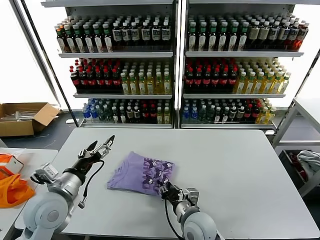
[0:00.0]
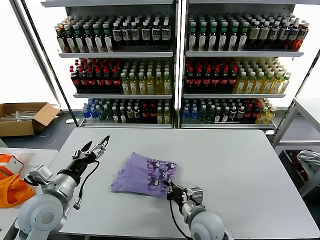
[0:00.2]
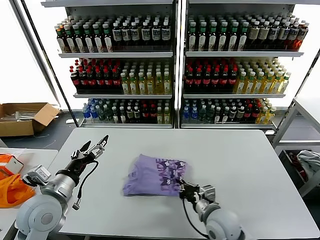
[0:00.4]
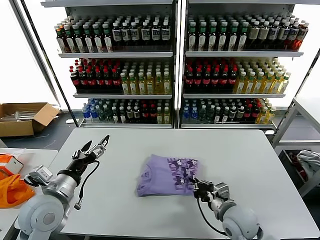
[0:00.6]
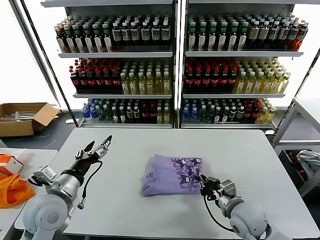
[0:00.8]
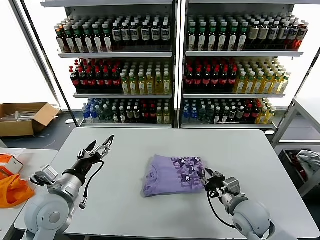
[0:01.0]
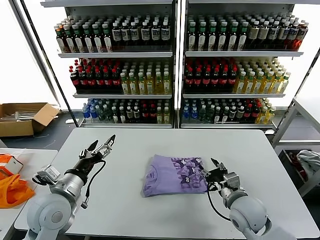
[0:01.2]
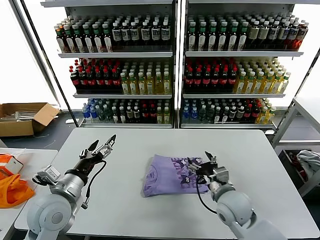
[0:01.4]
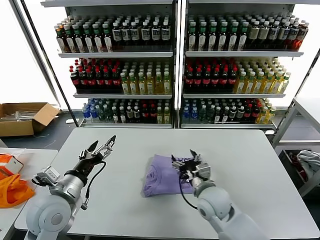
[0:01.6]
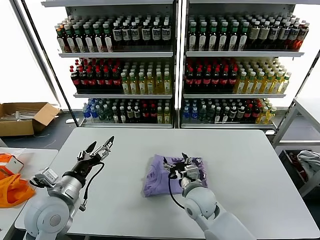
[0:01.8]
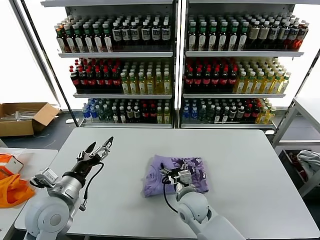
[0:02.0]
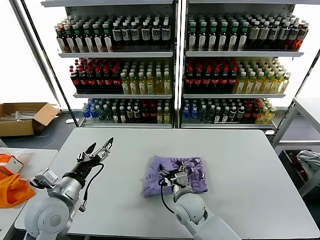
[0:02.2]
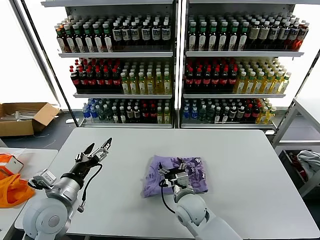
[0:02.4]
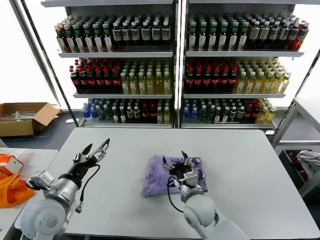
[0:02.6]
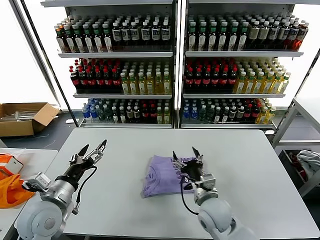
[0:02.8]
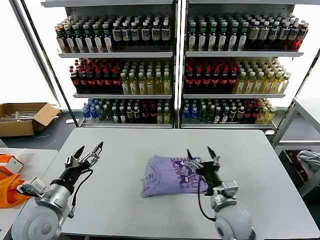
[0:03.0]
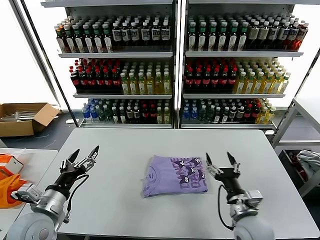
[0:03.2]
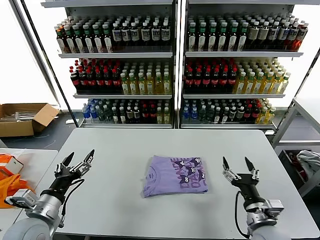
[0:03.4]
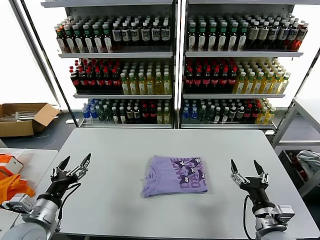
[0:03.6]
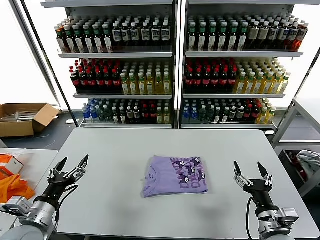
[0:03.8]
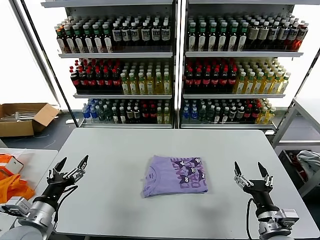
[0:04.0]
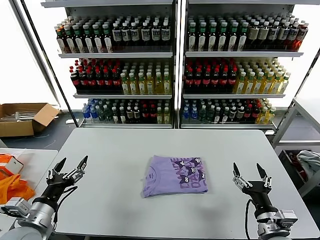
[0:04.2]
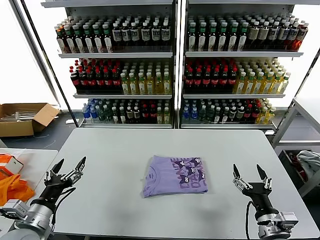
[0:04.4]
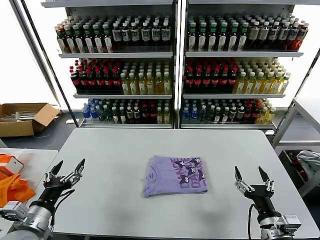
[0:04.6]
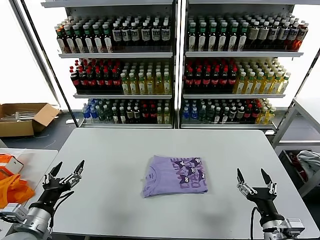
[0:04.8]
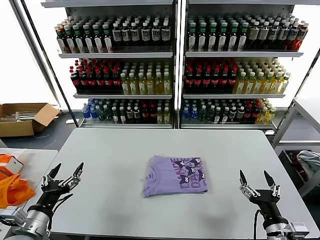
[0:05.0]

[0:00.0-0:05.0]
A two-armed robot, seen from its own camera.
Task of the whole recording: fold and organize the clothes.
Step, 0:00.0 to 0:02.2: Drag the clothes to the center of the table.
0:00.0 to 0:01.6: The right gripper heads forward, to the right and upward, covering some 10 cm, and opens up.
0:01.6 to 0:03.4: The right gripper heads to the right and backward, covering roughly 15 cm, while the left gripper ends up roughly 5 cm from where it was.
0:03.4 to 0:05.0: The right gripper moves backward, approximately 5 cm; the left gripper moves approximately 5 cm.
